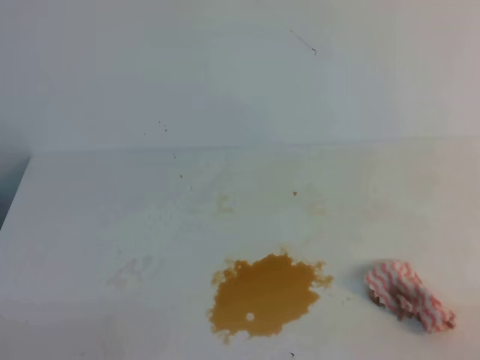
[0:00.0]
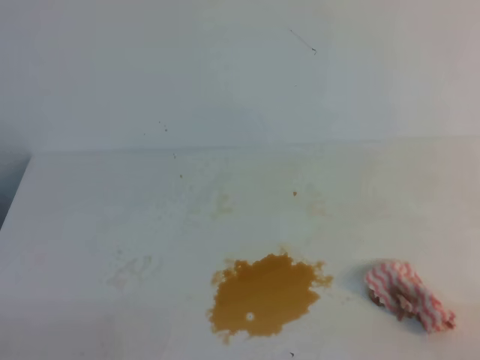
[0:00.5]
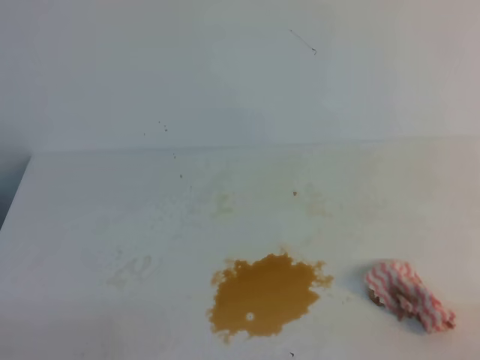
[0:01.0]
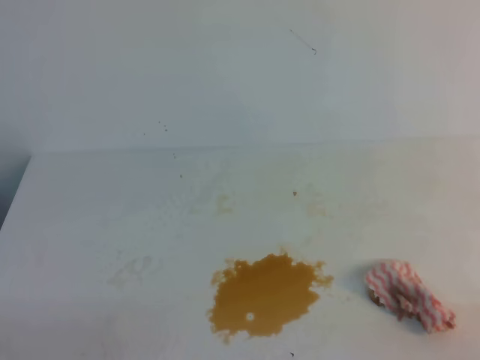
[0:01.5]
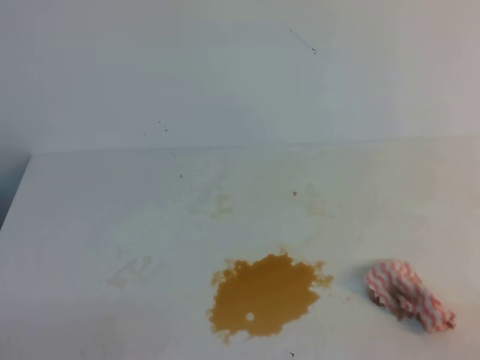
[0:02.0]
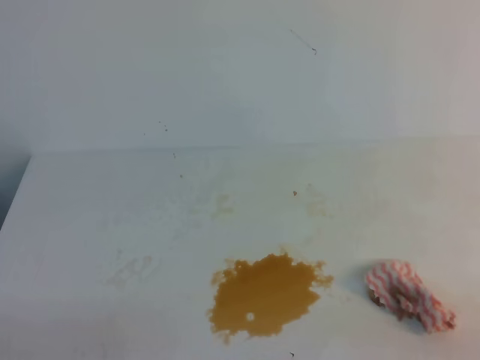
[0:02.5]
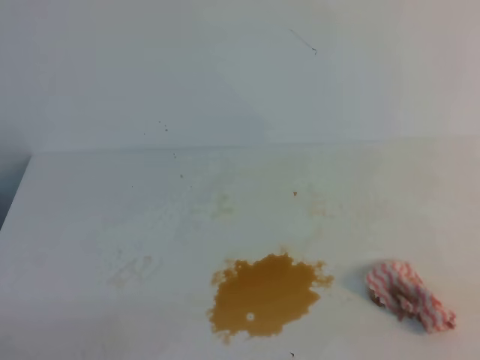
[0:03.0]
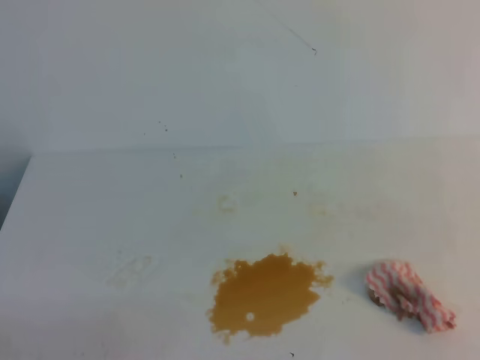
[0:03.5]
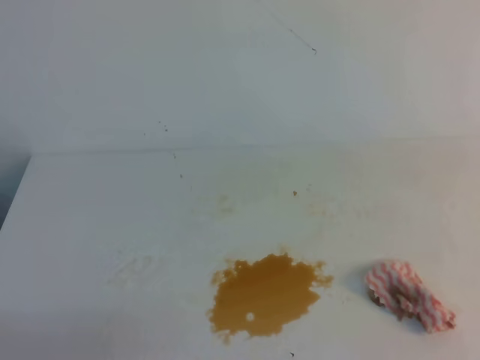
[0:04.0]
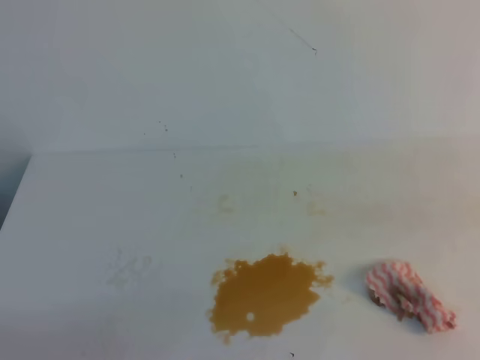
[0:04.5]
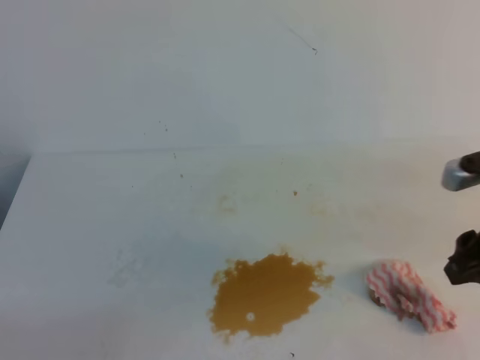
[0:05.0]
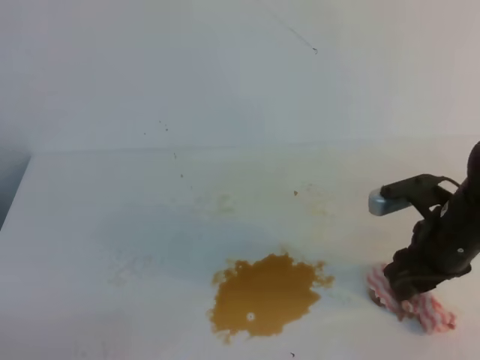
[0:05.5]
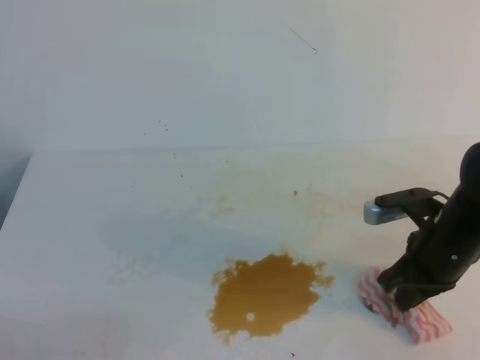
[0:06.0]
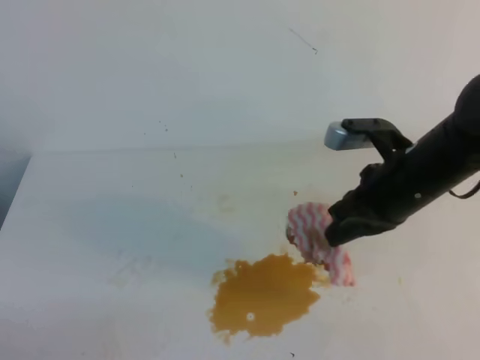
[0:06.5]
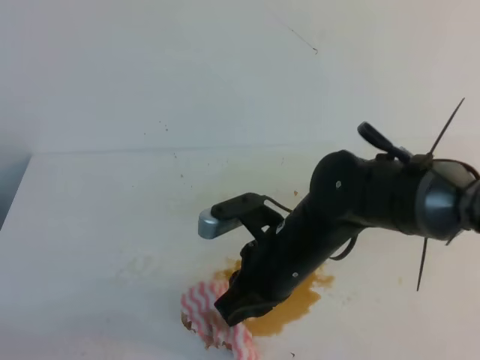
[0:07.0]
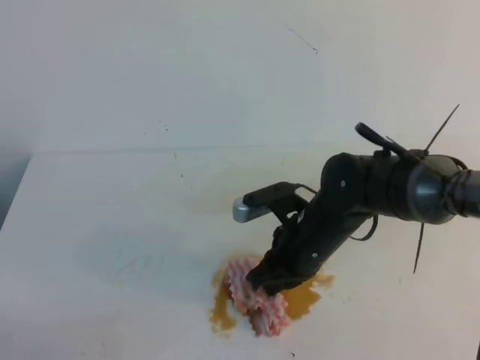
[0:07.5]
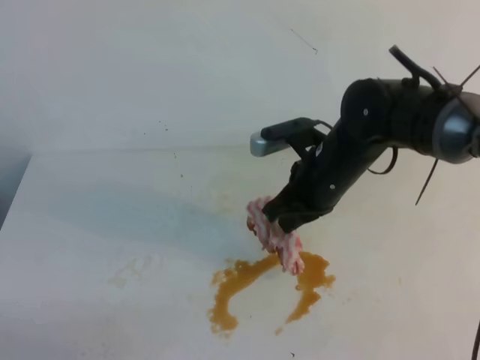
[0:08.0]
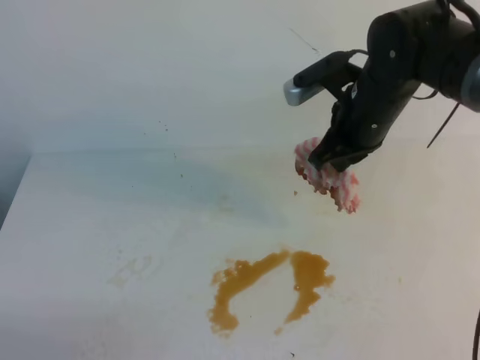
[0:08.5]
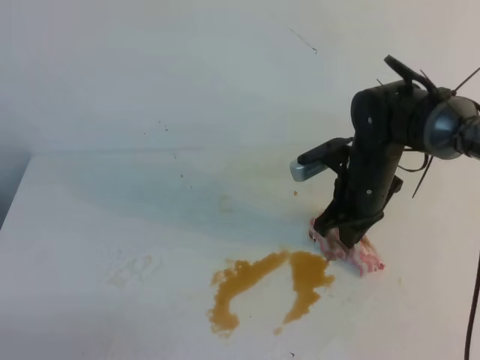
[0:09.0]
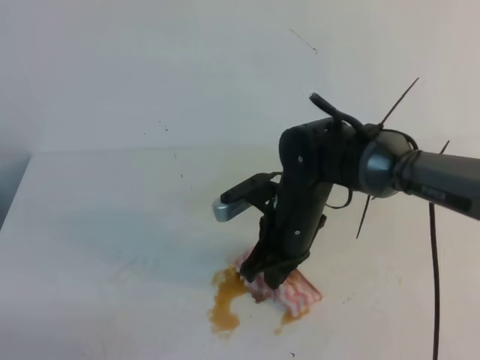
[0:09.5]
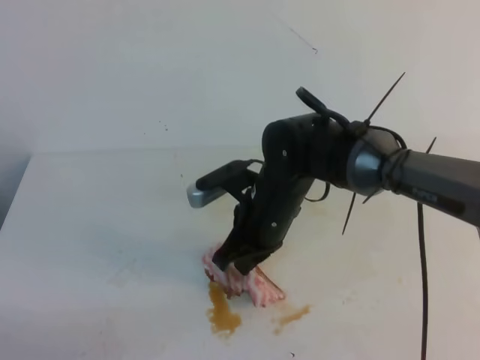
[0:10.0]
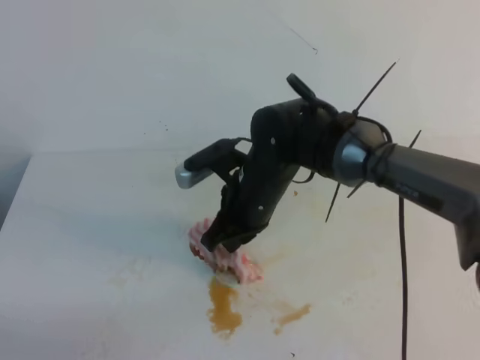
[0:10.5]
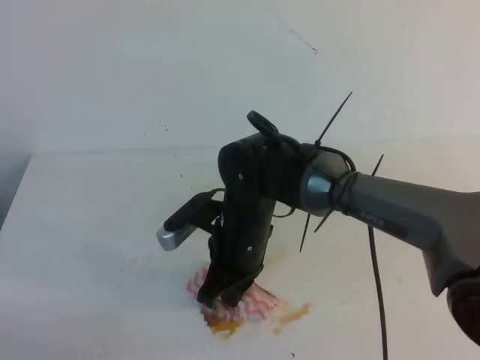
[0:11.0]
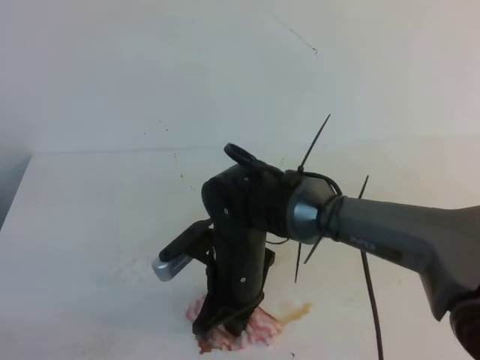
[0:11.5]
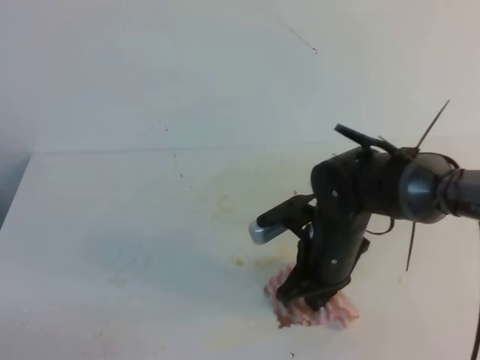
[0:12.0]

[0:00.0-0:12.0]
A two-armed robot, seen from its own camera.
0:00.0 to 0:02.0: Neither gripper changes place.
0:04.0 to 0:06.0: The right gripper heads downward, forward and to the left, covering about 30 cm, and opens and closes again.
0:06.0 to 0:08.0: The right gripper travels to the left and forward by roughly 15 cm.
0:08.0 to 0:10.0: The right gripper travels to the left by some 5 cm.
0:10.0 to 0:12.0: The right gripper moves some 5 cm.

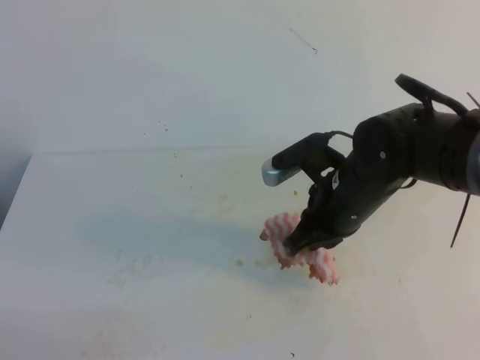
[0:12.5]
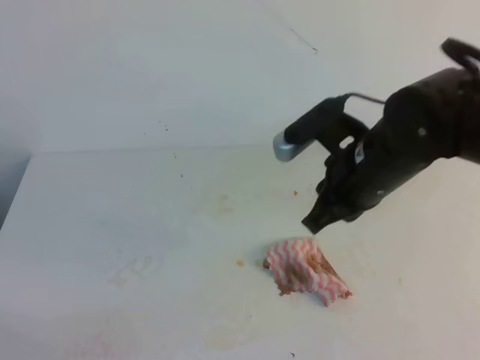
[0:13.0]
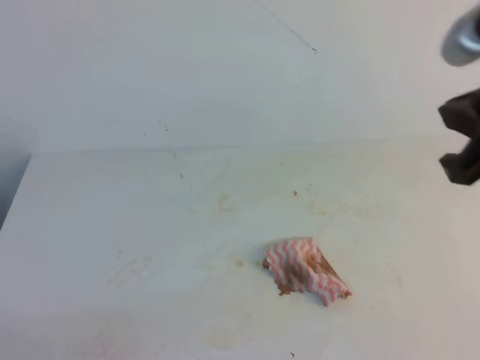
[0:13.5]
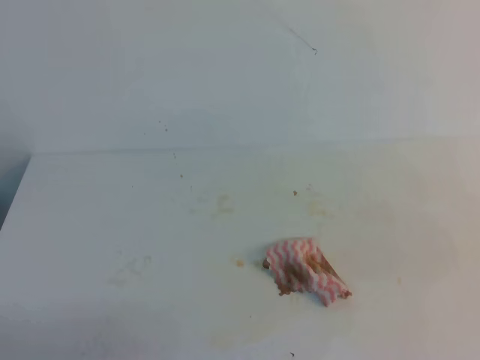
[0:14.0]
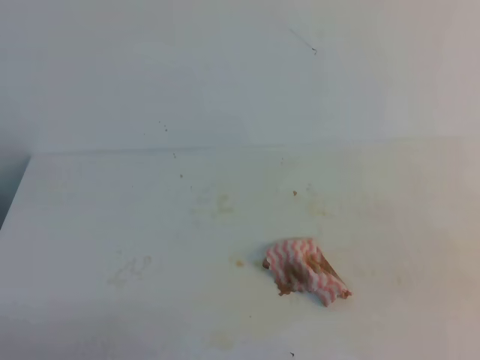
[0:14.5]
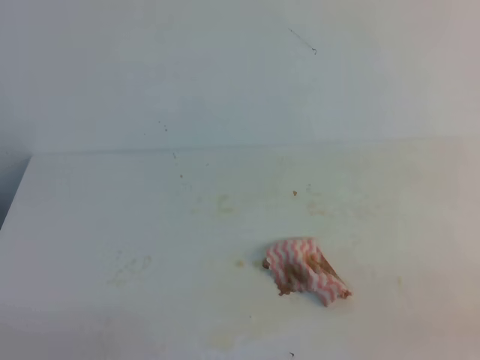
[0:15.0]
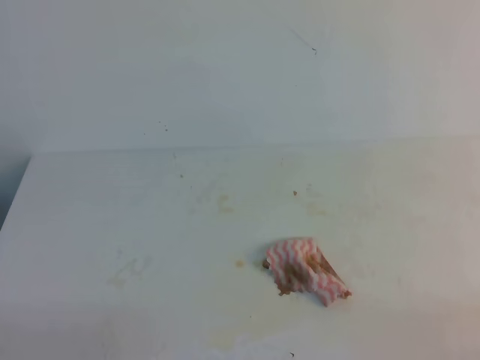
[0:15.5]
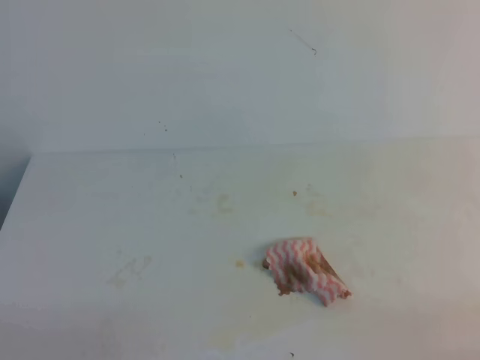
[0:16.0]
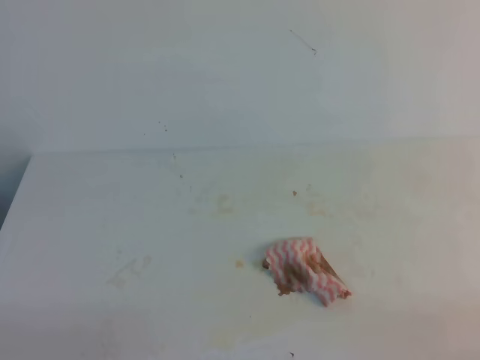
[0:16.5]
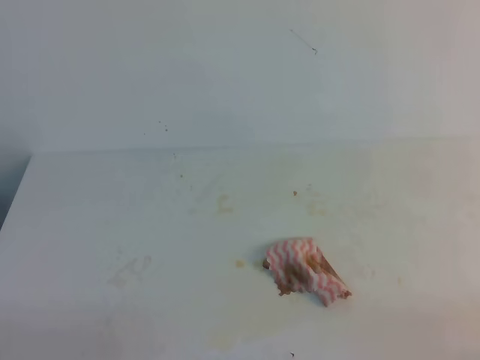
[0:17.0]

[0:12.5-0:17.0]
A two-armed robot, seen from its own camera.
0:12.5 to 0:14.5: The right gripper shifts approximately 25 cm backward and to the right.
